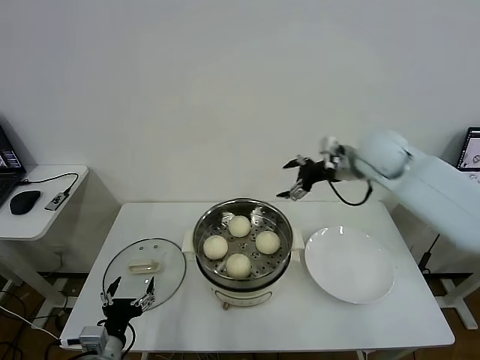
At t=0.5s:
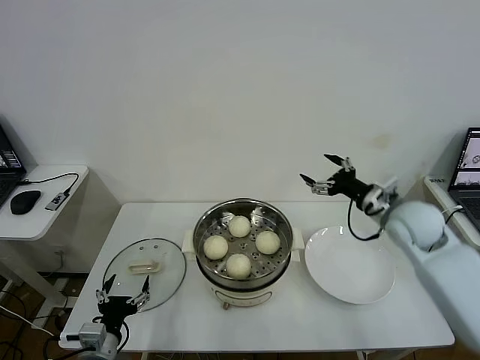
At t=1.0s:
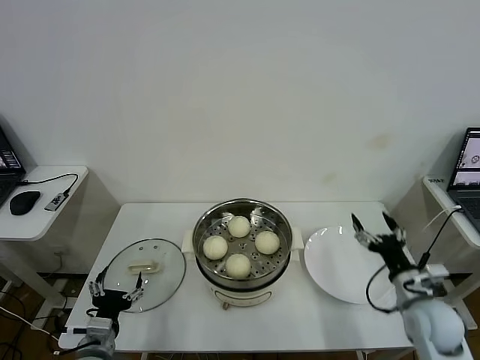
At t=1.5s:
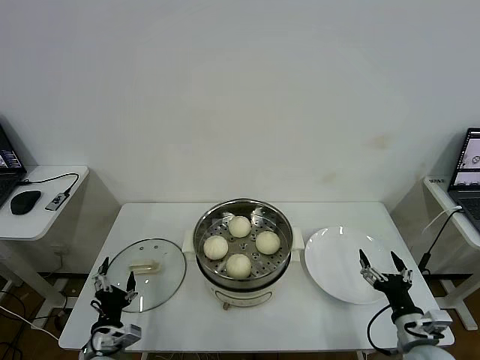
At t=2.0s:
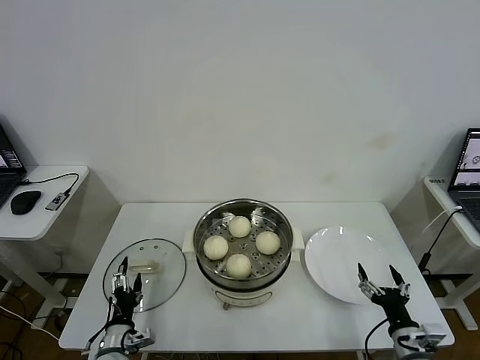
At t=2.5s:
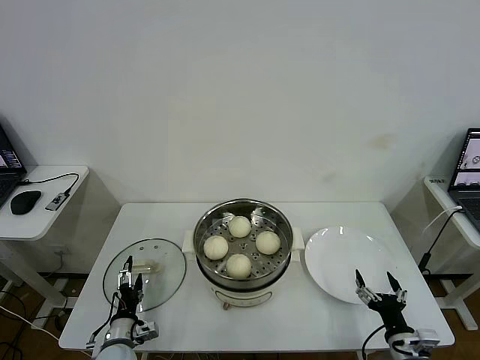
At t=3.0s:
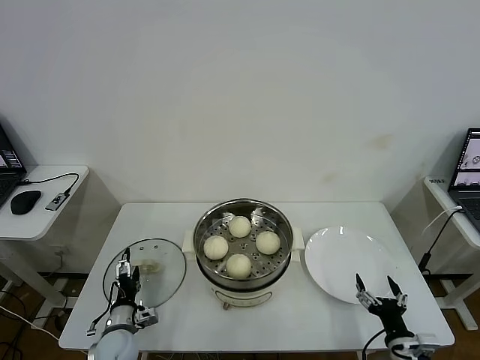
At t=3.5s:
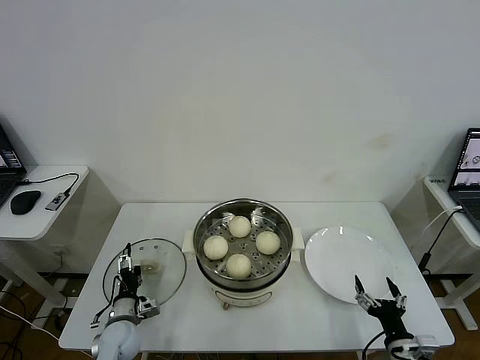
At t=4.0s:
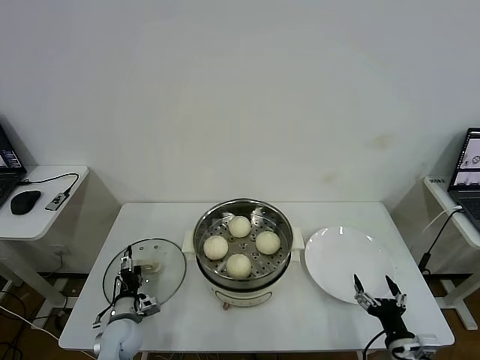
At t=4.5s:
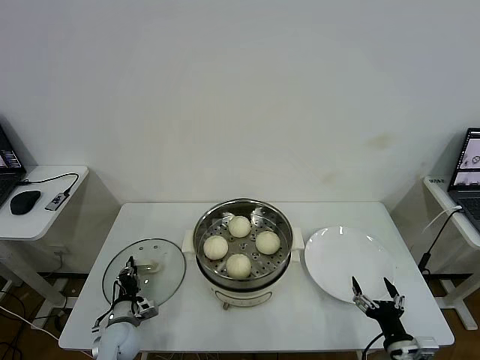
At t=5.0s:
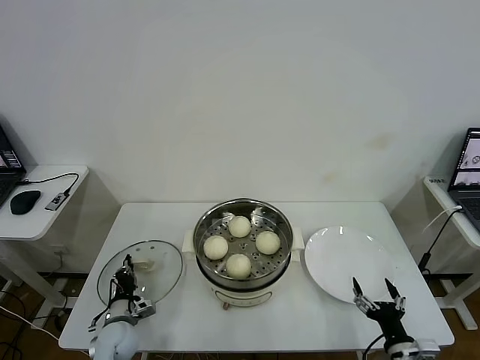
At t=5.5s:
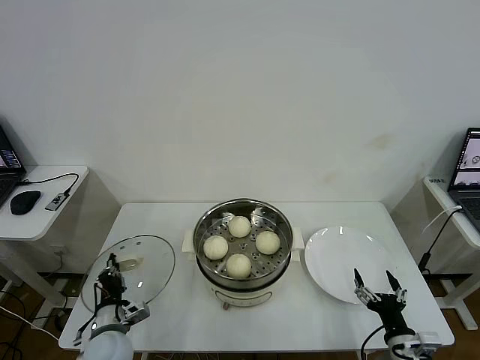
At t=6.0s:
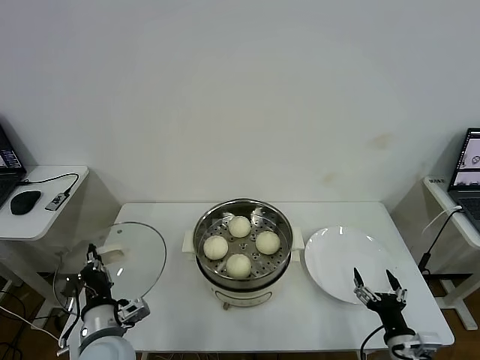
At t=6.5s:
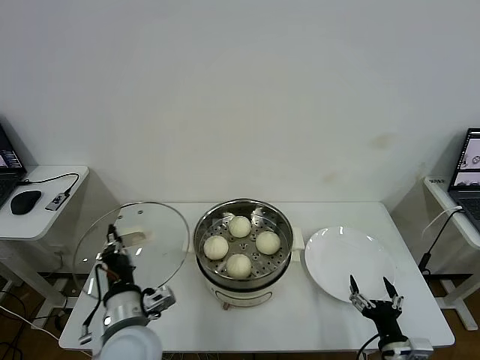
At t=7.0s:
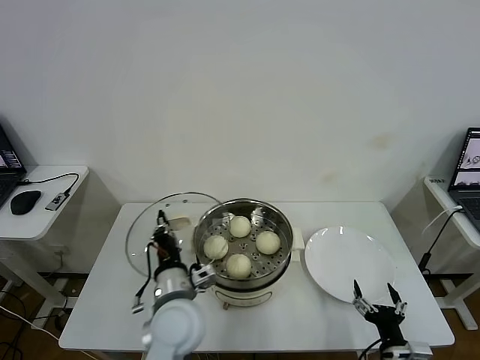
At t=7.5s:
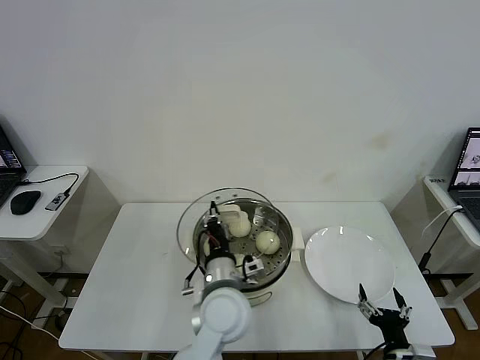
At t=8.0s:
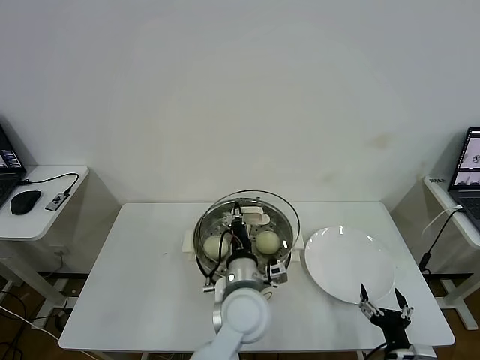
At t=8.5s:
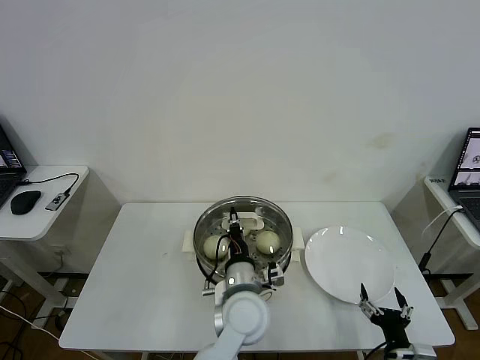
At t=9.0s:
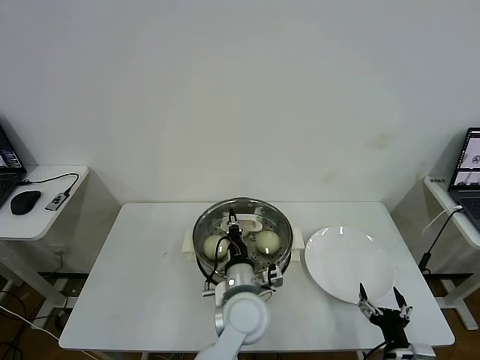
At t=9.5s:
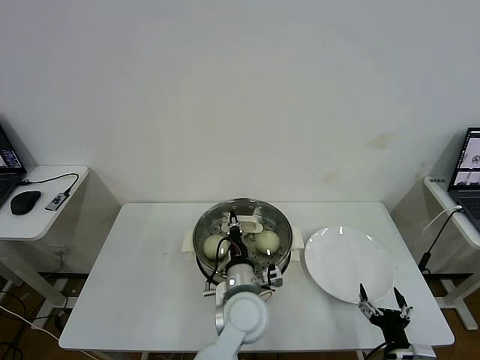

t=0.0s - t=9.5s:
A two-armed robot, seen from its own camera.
Task of the whole recording: take steamed baozi put them in steamer then cover it.
Step, t=0.0s - t=5.0s: Grasp the pot lid with left gripper.
t=0.0s - t=2.0s: The left gripper shifts roughly 10 cm downward. Meanwhile the right gripper shifts some 50 cm backward and downward.
t=2.0s - t=4.0s: The left gripper is displaced forward by about 10 cm.
t=4.0s - t=5.5s: The left gripper goes about 5 cm upward, and closes its fingers.
t=5.5s - t=7.5s: The left gripper travels to the right and upward by some 30 cm.
t=7.5s - t=9.5s: The left gripper moves some 5 cm.

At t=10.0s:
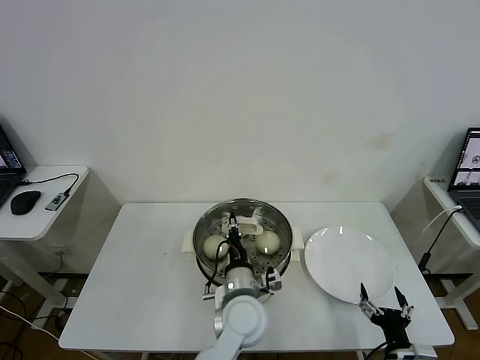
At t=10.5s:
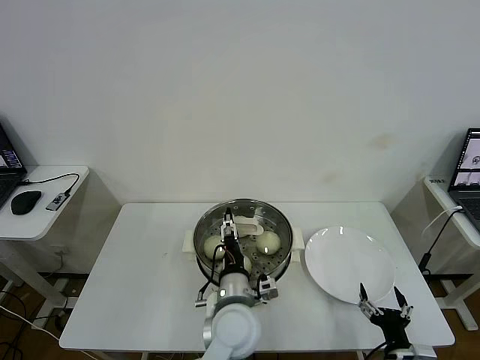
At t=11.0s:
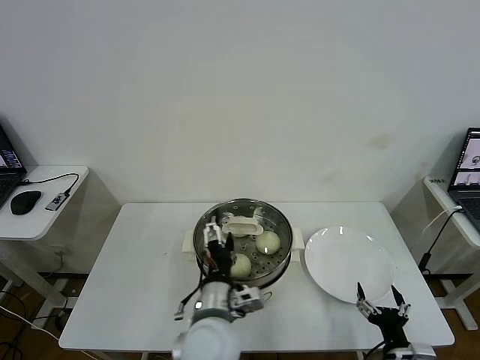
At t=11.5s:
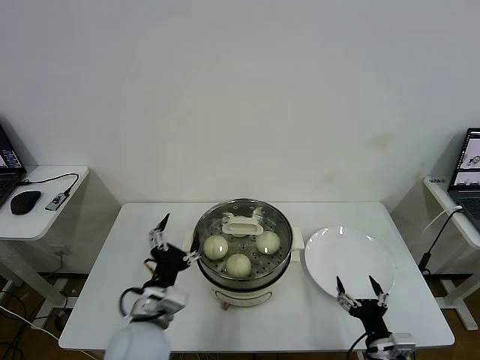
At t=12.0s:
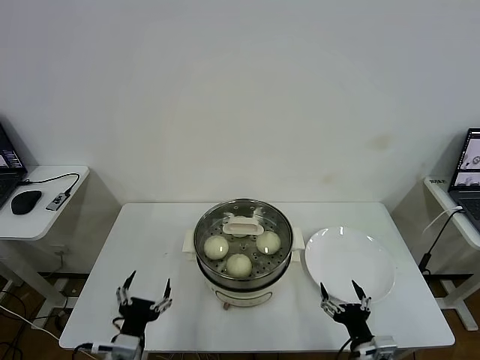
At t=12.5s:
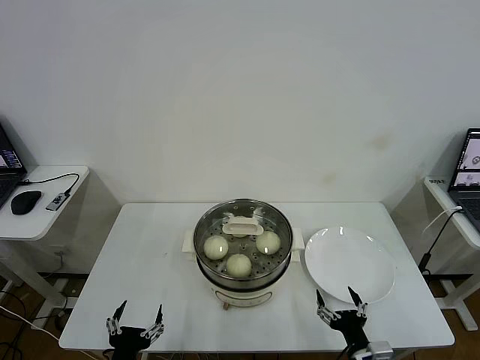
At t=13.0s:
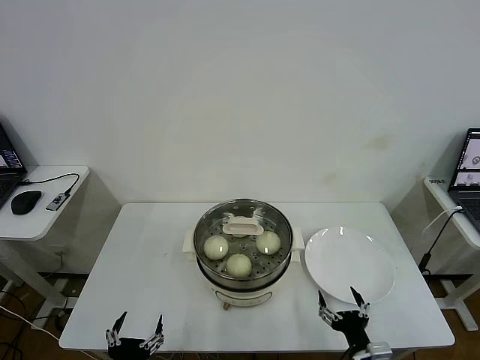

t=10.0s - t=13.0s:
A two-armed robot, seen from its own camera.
Task of the whole recording: take steamed baozi put them in steamer then cover it.
t=10.0s - t=11.5s: The left gripper is displaced to the left by about 15 cm, and opens up.
t=11.5s - t=13.0s: The left gripper travels backward, downward and to the left by about 20 cm.
